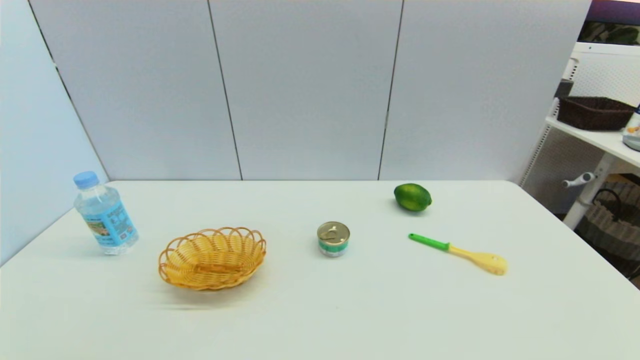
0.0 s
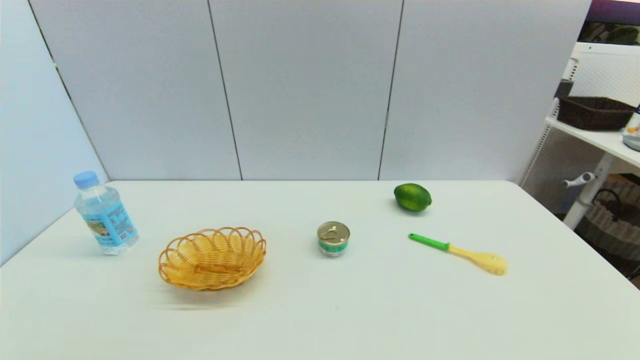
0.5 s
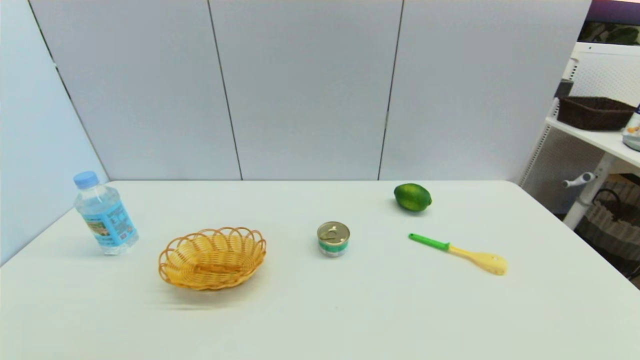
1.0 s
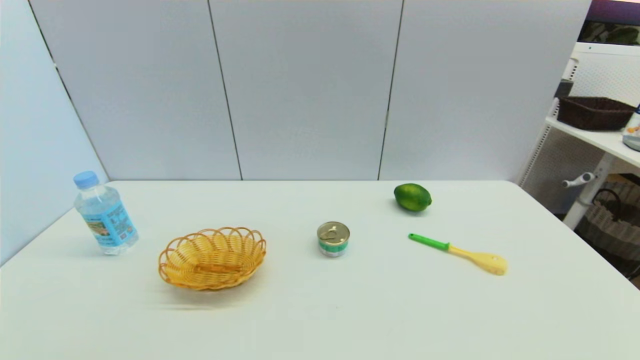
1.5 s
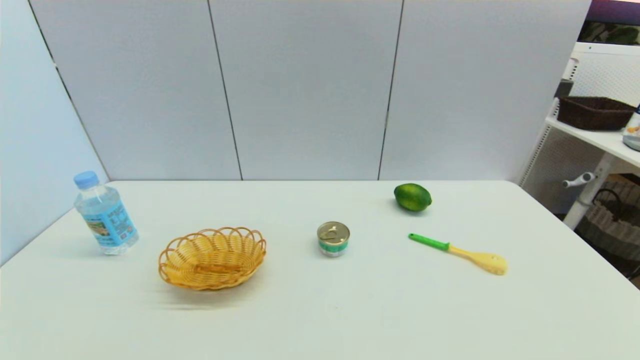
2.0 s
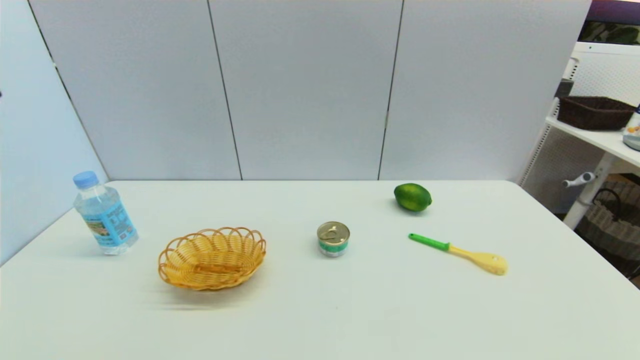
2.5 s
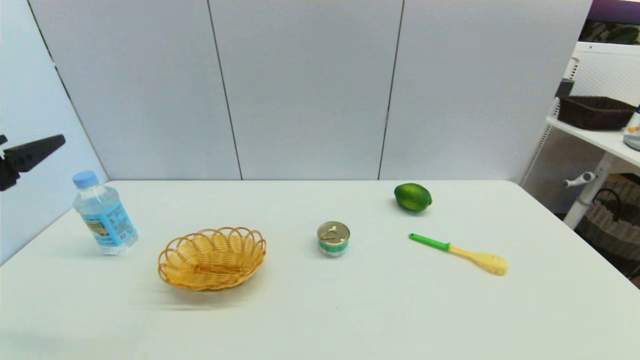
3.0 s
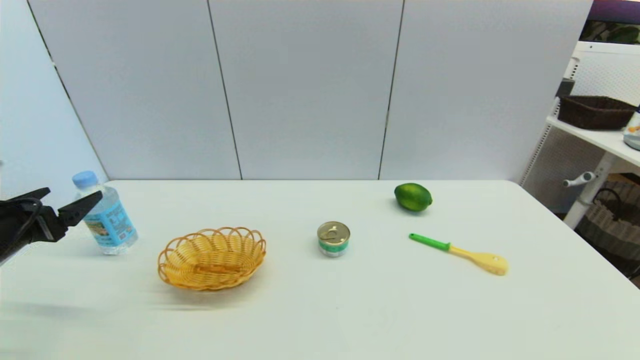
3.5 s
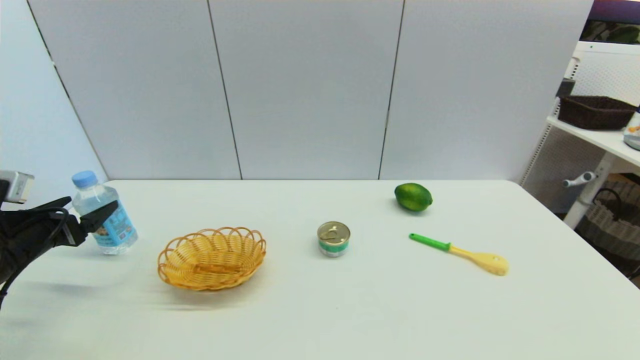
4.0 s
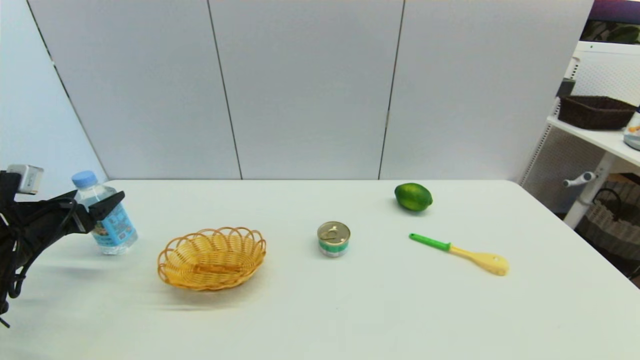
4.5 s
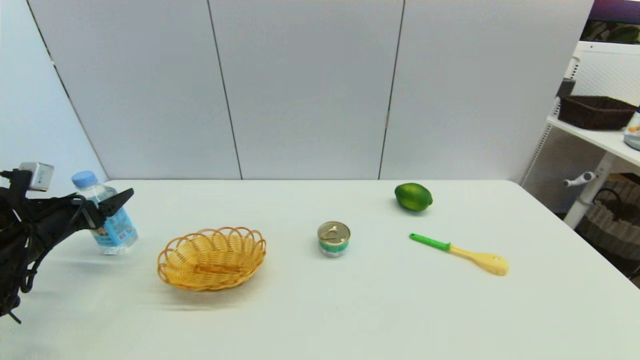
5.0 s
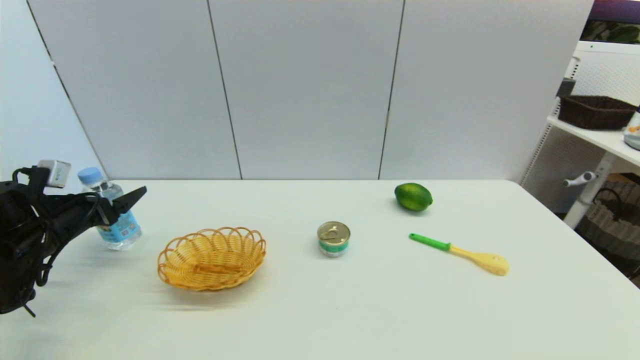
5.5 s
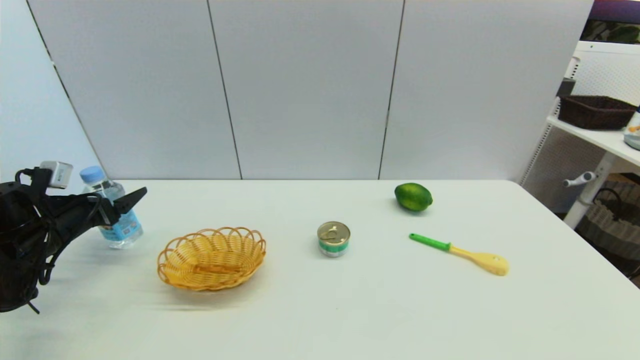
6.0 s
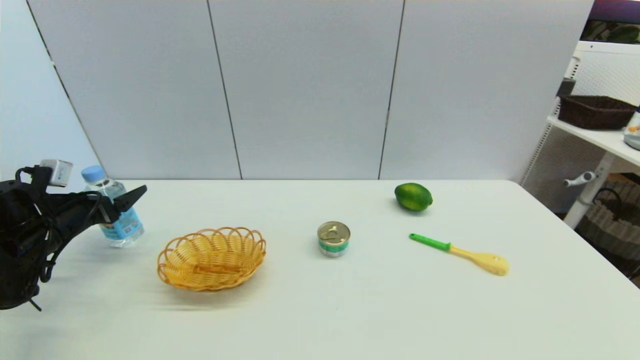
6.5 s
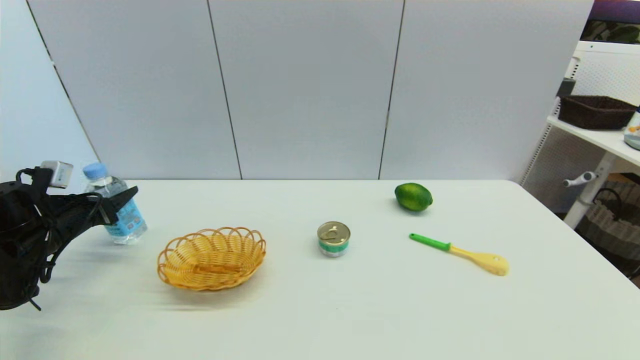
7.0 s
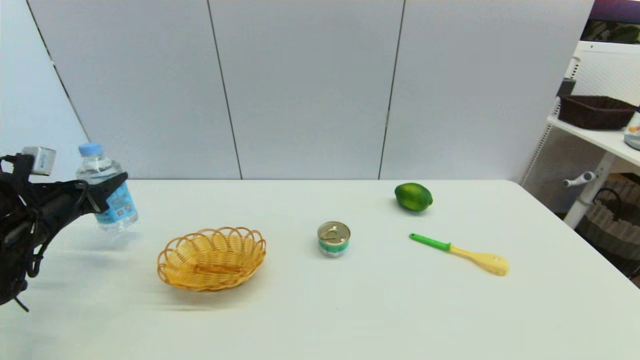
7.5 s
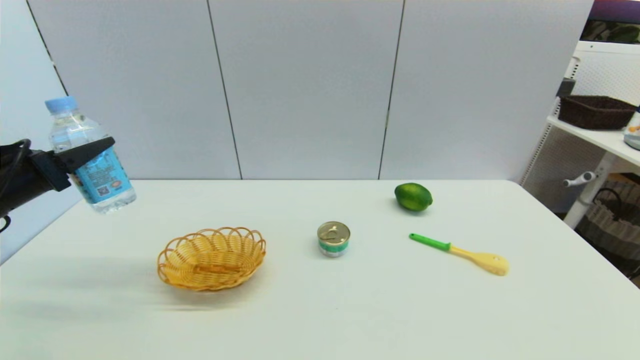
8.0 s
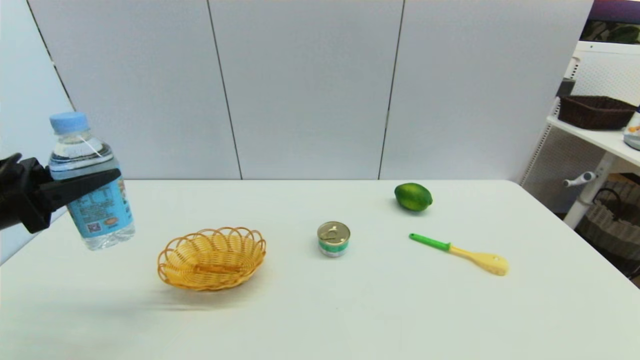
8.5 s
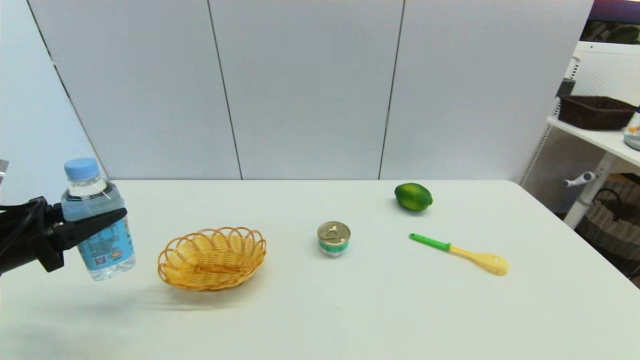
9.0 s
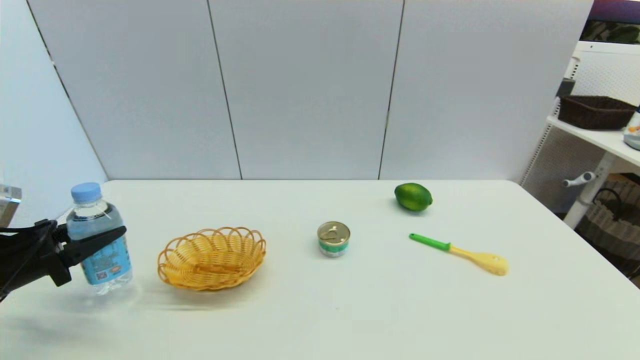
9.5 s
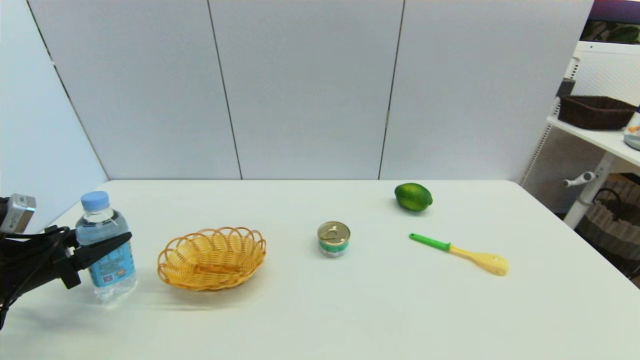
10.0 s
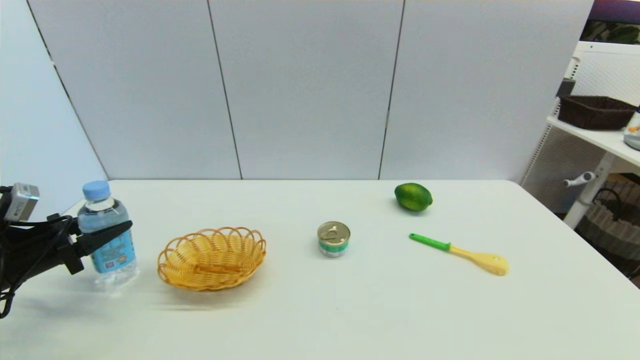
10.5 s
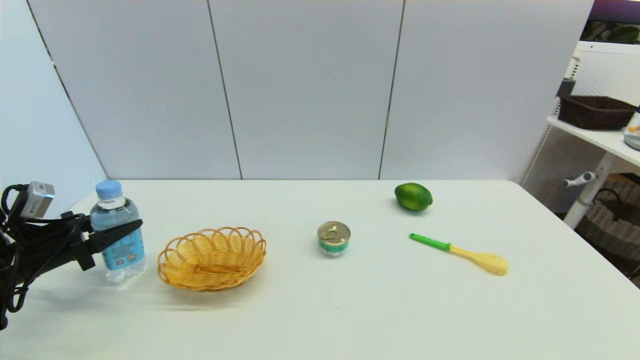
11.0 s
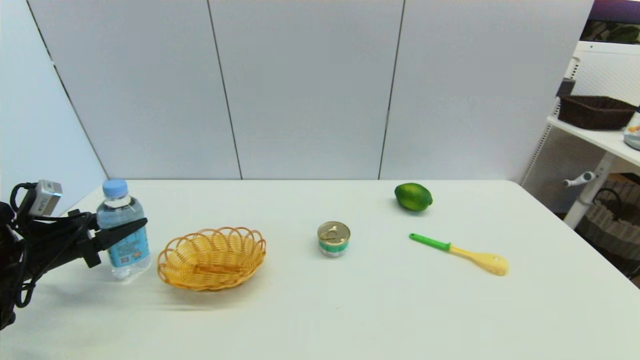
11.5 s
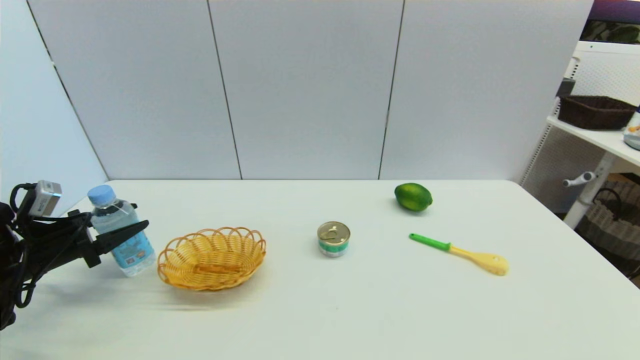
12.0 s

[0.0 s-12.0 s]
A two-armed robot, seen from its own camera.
Step, 2.0 to 7.5 s: Grasp the soda water with left gripper.
2.0 to 4.0 s: The left gripper moves forward, downward and to the left, about 30 cm.
4.0 to 6.0 s: The left gripper shifts approximately 5 cm forward.
6.0 to 8.0 s: The left gripper shifts about 15 cm upward and backward, and closes.
8.0 to 10.0 s: The left gripper is displaced downward by about 10 cm.
10.0 to 12.0 s: The left gripper opens.

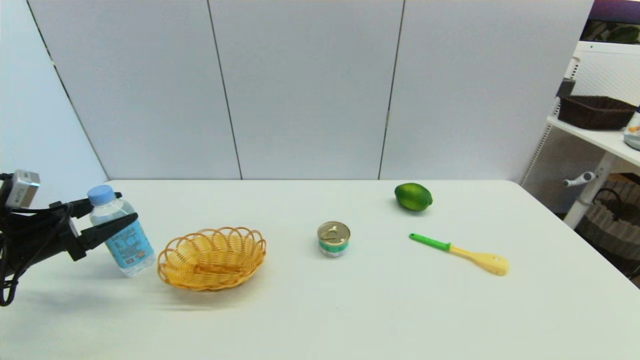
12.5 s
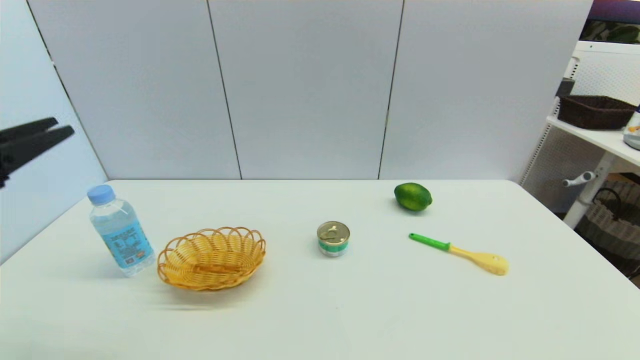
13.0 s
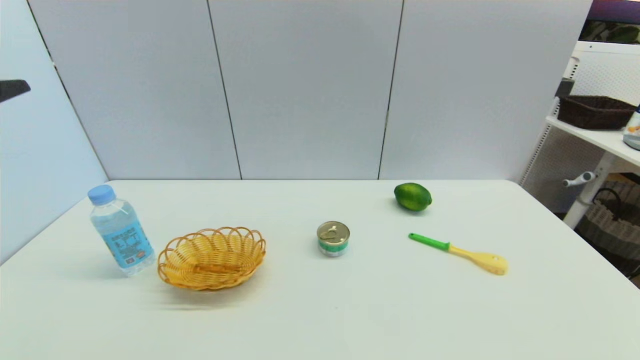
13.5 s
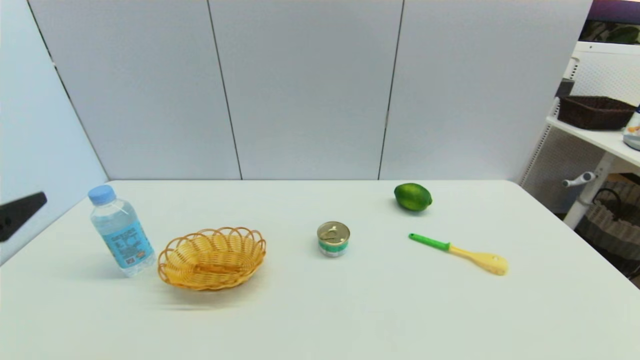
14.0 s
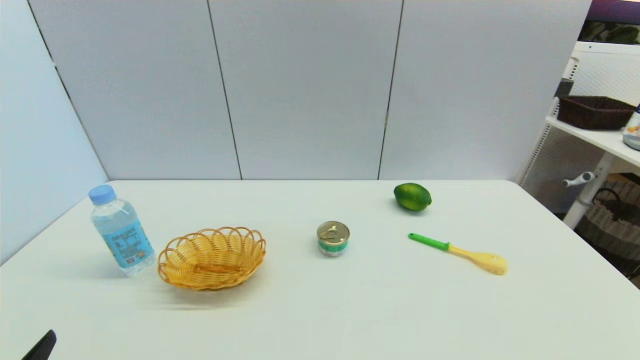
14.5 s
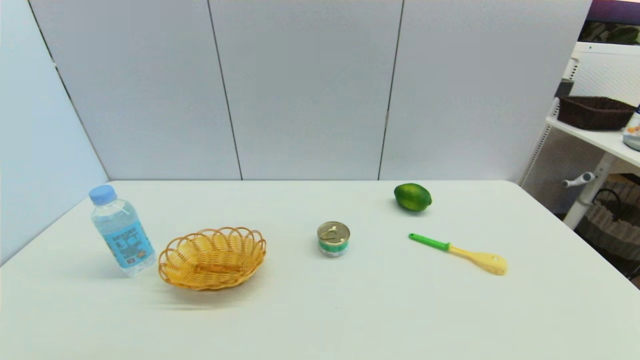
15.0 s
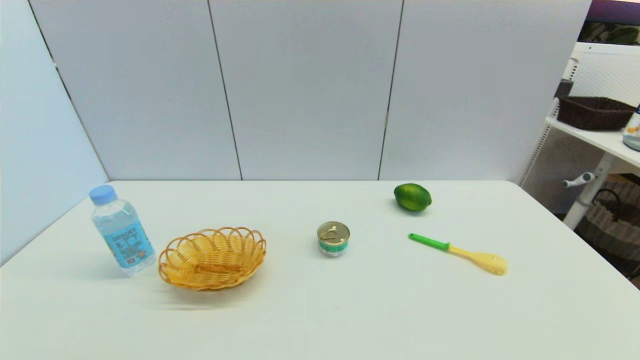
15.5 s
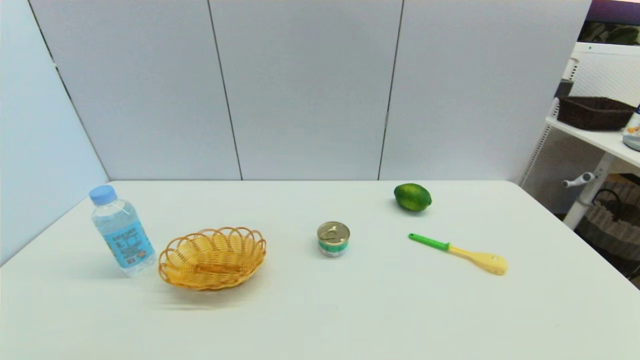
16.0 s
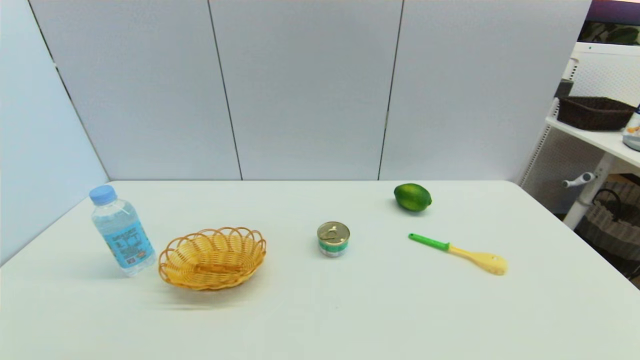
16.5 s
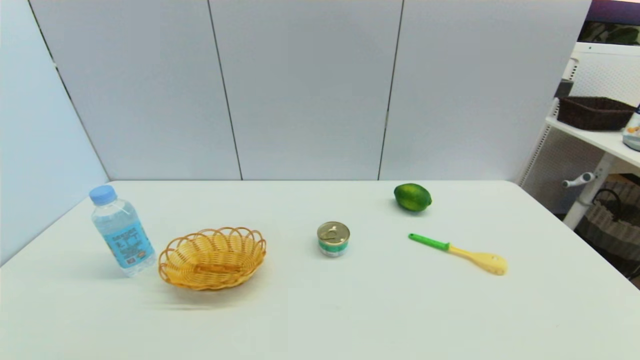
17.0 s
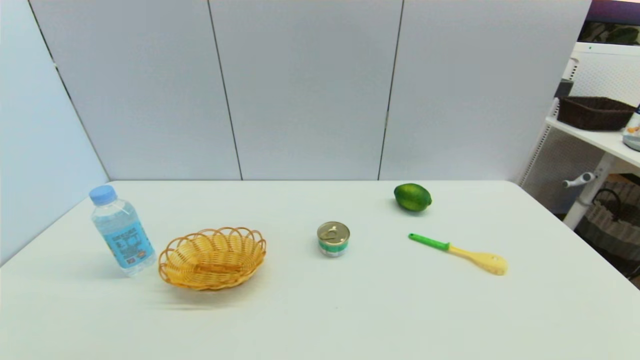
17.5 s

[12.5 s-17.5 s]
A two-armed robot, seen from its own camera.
12.5 to 15.0 s: The left gripper is displaced backward and to the right by roughly 30 cm.
15.0 to 17.5 s: Neither gripper changes place.
